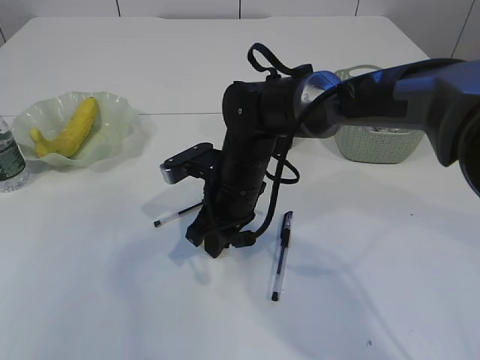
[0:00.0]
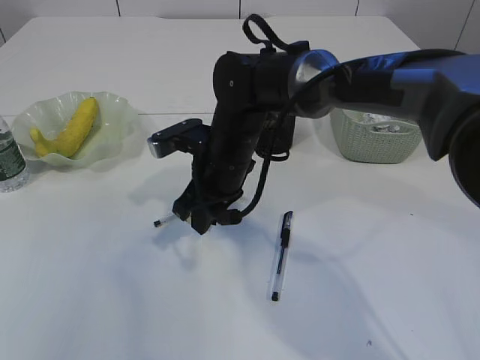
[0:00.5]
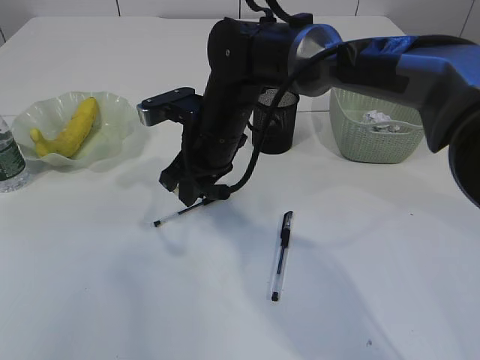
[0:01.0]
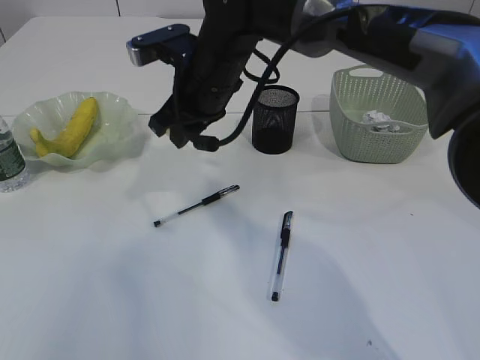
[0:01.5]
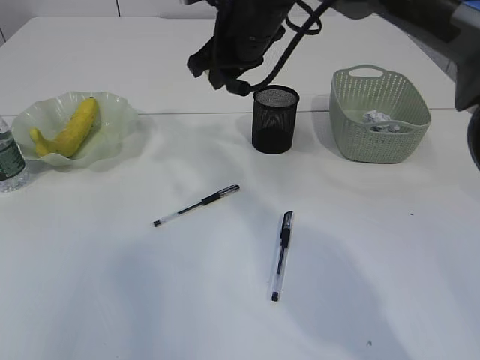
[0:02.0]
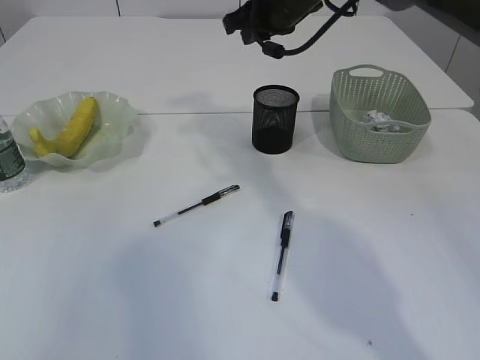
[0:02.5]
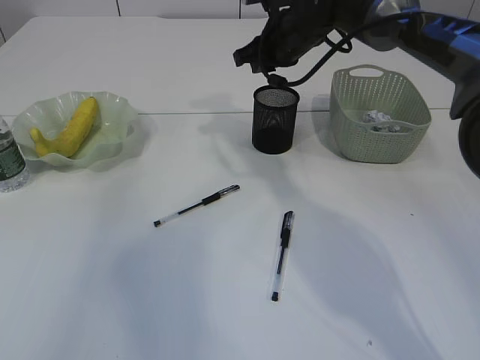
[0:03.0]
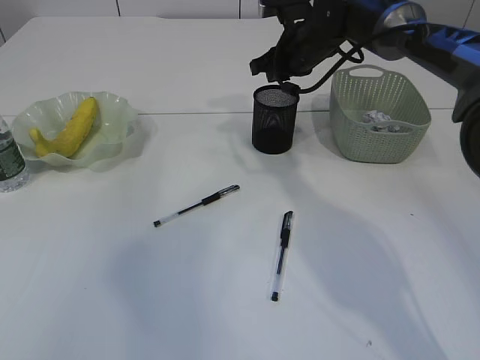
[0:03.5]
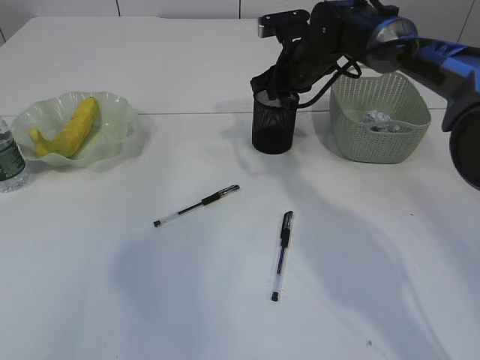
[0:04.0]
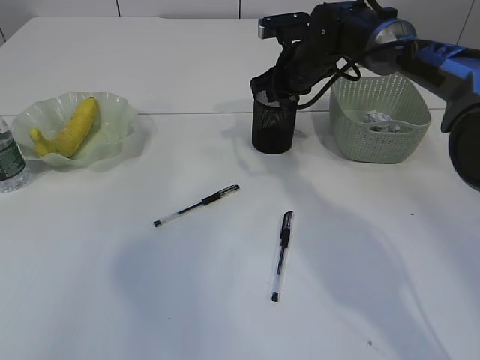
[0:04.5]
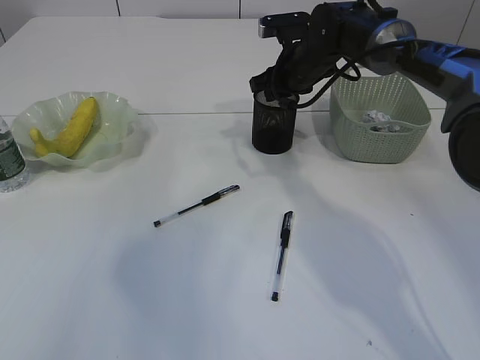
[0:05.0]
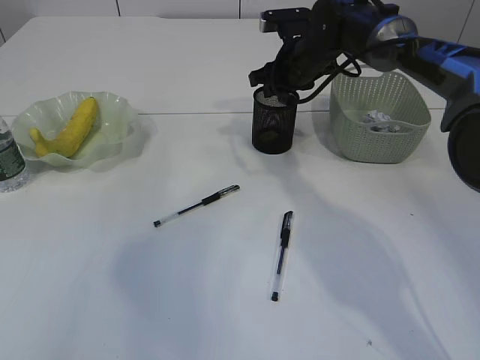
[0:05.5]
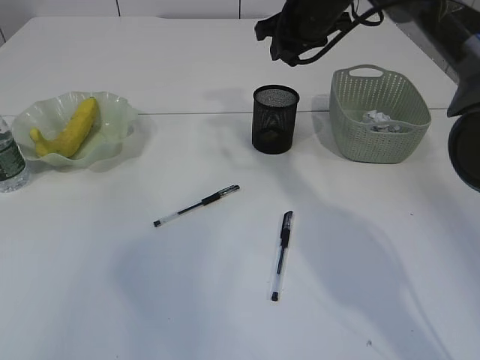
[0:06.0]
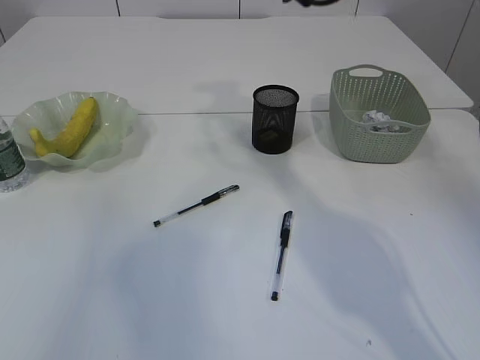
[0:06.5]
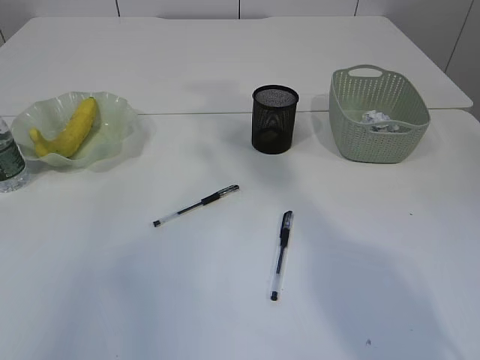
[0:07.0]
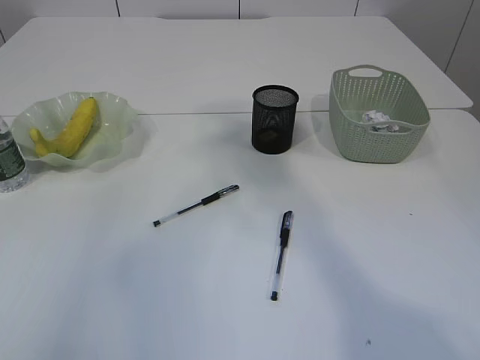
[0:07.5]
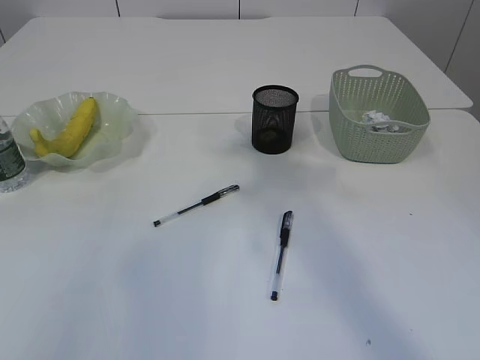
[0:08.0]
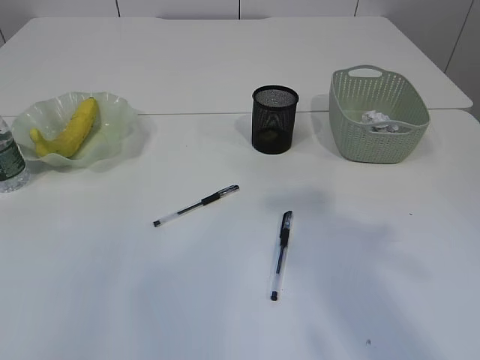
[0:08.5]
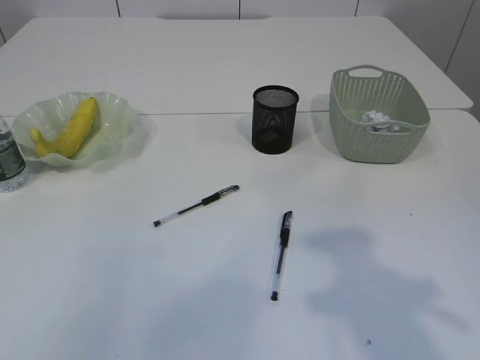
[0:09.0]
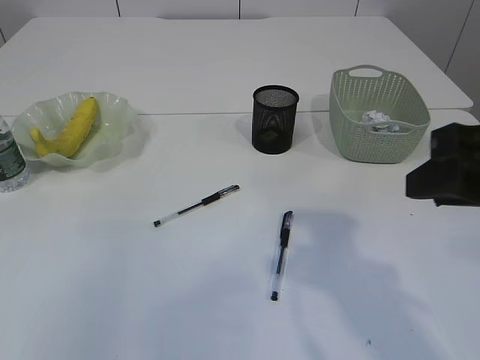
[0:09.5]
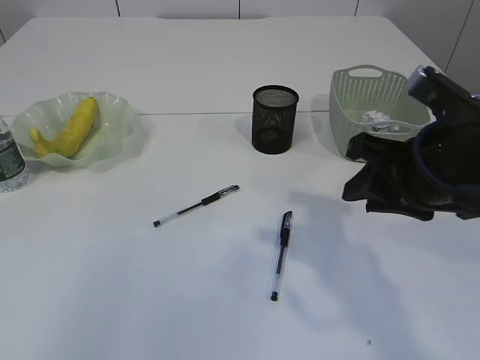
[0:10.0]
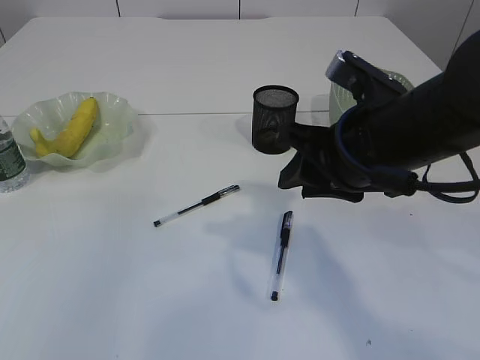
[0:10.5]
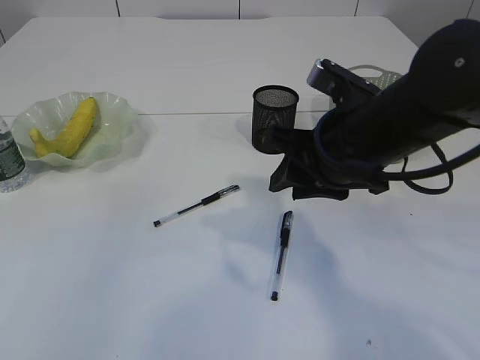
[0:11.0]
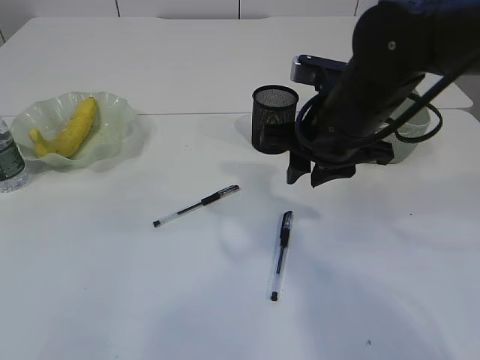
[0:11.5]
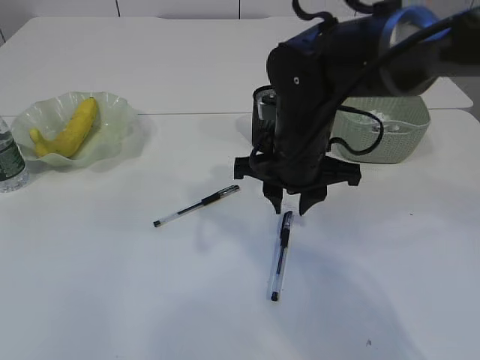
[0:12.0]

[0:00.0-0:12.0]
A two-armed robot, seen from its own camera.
Step, 1.0 to 5.5 s: Place the eraser into the pen holder.
0.0 to 2.0 s: The right gripper goes some 20 cm upward and forward.
2.0 to 4.0 s: The right gripper is displaced to the right, downward and forward by about 15 cm.
4.0 to 6.0 s: The right gripper shifts approximately 10 cm upward.
6.0 to 8.0 s: The right gripper moves backward and upward, some 35 cm.
8.0 to 10.0 s: The left gripper heads backward, covering about 10 cm. Meanwhile the right gripper is displaced downward by roughly 20 cm.
10.0 to 12.0 s: The right gripper goes roughly 15 cm to the left and forward.

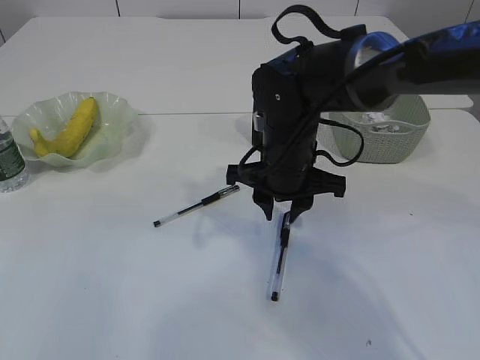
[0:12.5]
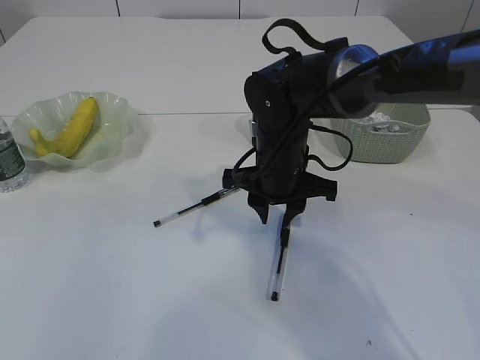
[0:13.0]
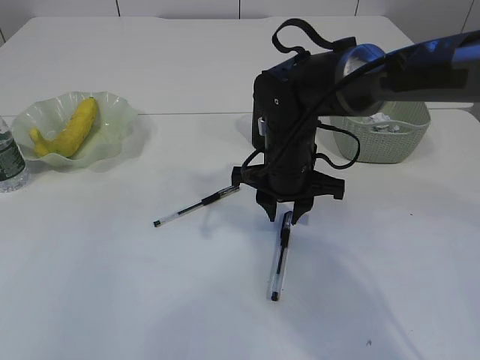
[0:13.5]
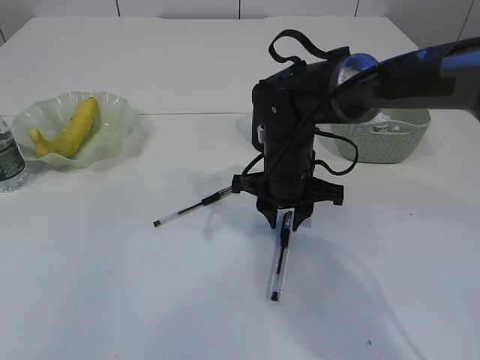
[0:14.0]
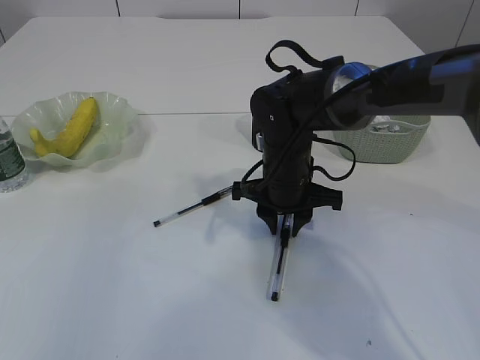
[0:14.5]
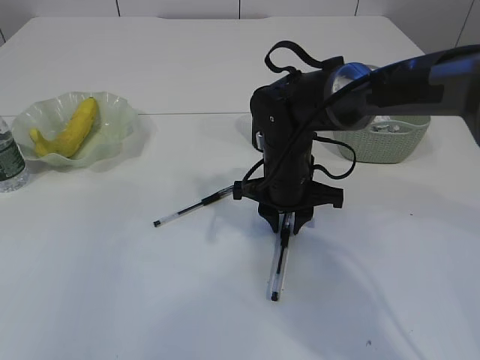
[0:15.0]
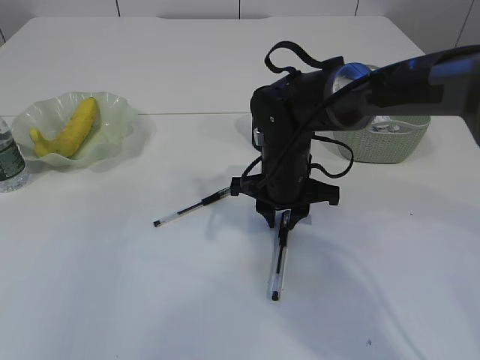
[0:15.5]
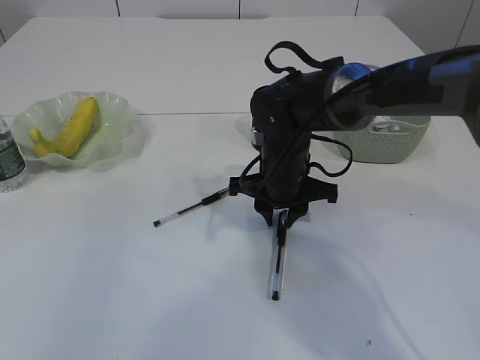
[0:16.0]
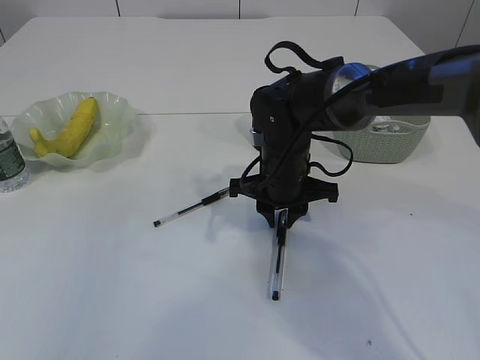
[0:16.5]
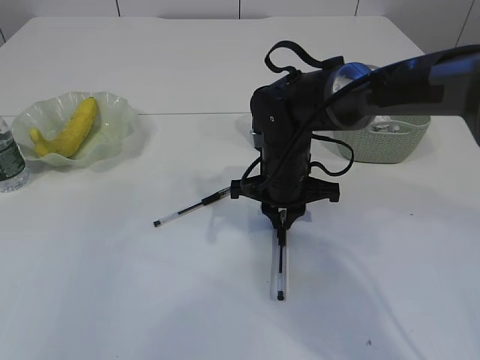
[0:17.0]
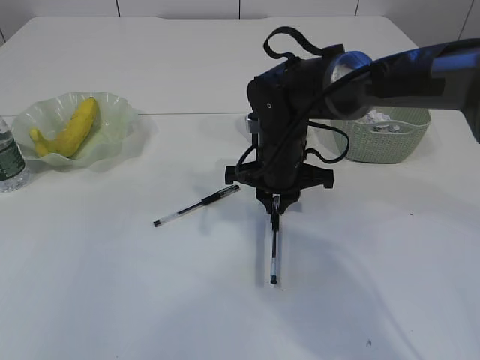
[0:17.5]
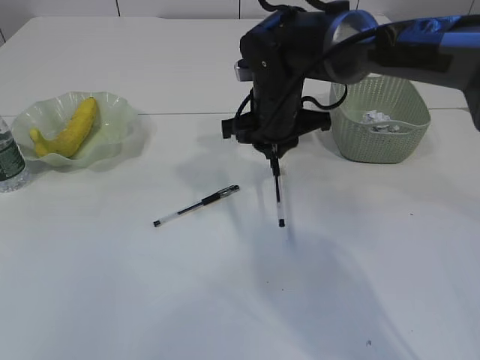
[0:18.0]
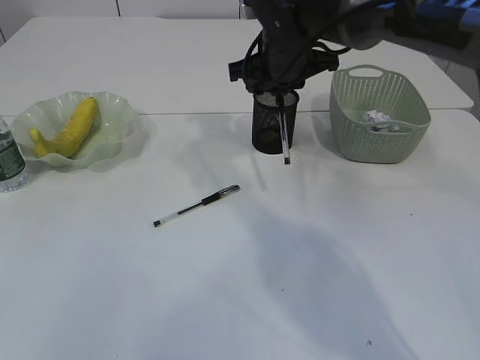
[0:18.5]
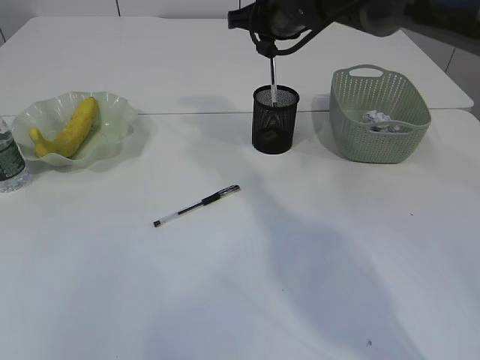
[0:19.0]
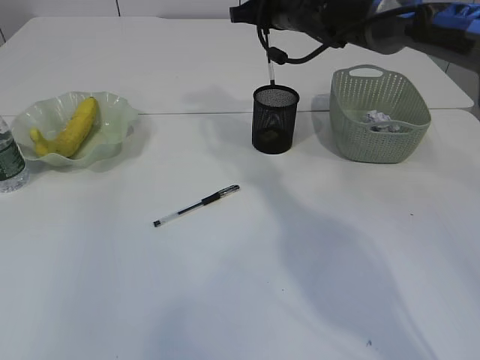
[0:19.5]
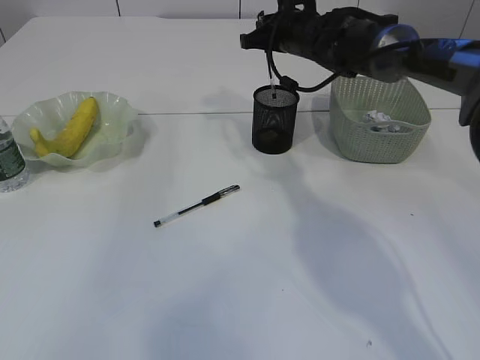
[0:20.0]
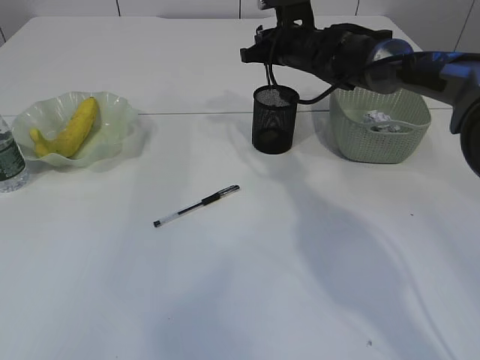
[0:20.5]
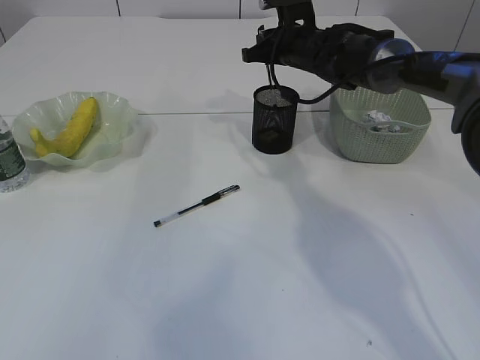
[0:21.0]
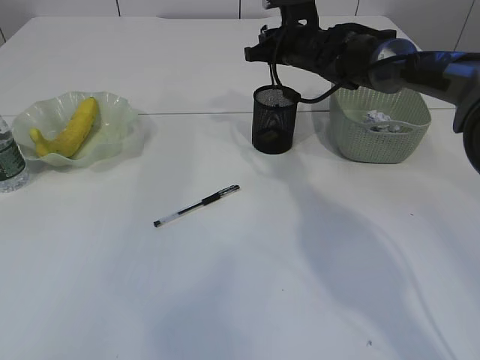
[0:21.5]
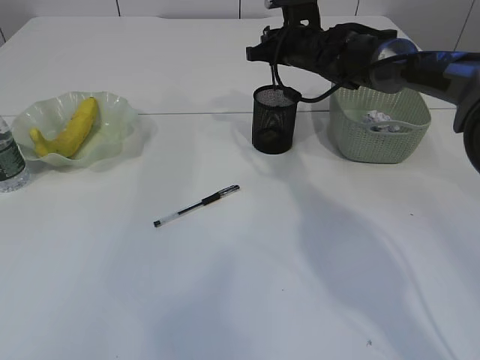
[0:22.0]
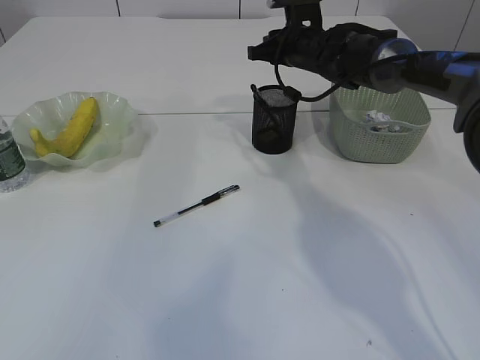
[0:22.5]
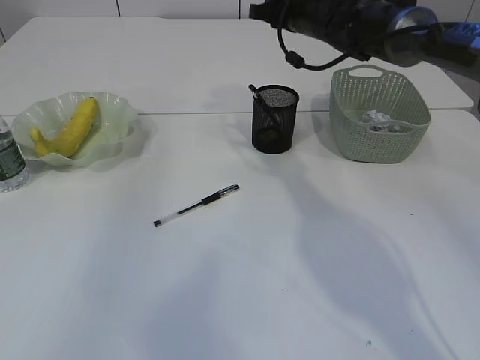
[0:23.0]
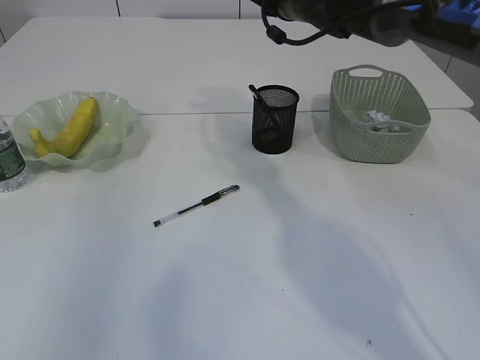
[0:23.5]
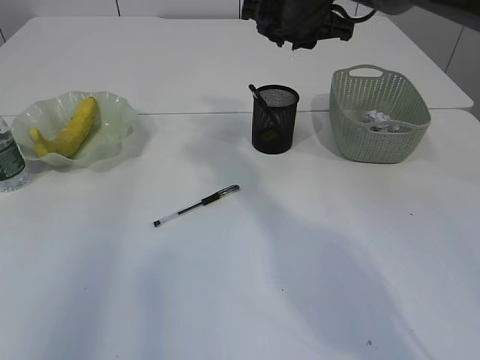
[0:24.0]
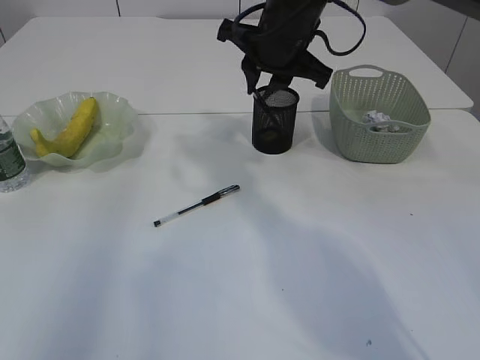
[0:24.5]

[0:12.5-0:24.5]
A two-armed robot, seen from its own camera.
Step, 12.5 to 17.5 s: Pick up the pen with right arm.
Step, 18.0 to 22.0 s: Place the pen into the pen holder.
12.5 to 16.5 s: There are only small adjustments of the grippers.
16.5 to 18.5 s: The right gripper goes some 15 cm upward and forward.
18.5 to 20.5 s: The right gripper shifts roughly 10 cm forward.
20.5 to 22.5 s: The grippers move only a little.
22.5 to 24.5 s: The left gripper goes some 5 cm forward. Meanwhile the right gripper moves backward, upward and to the left, roughly 15 cm.

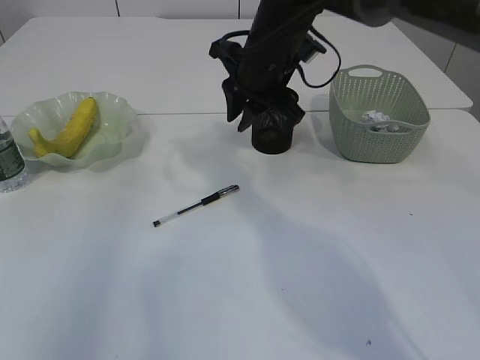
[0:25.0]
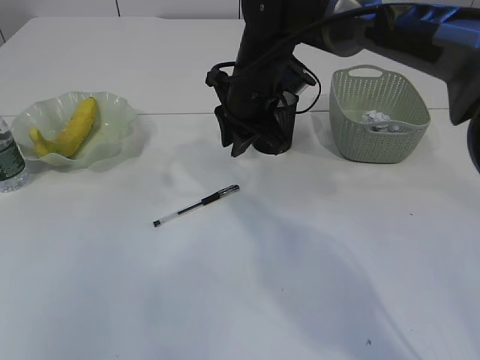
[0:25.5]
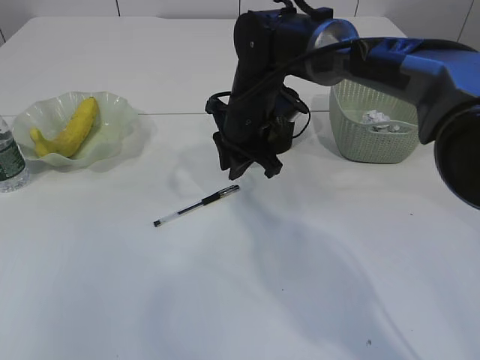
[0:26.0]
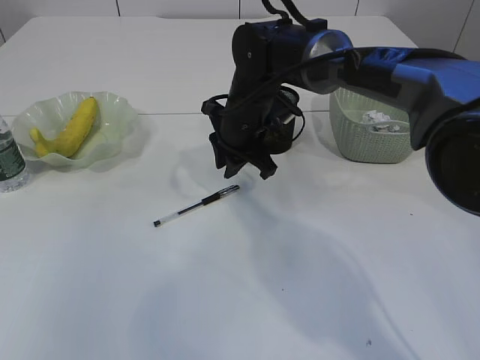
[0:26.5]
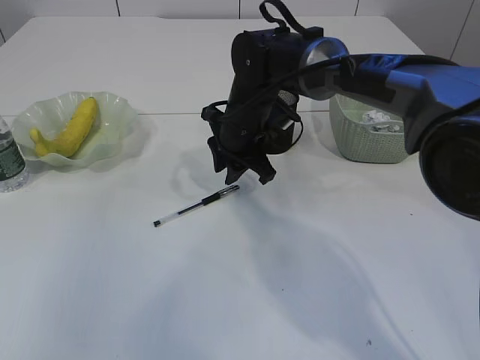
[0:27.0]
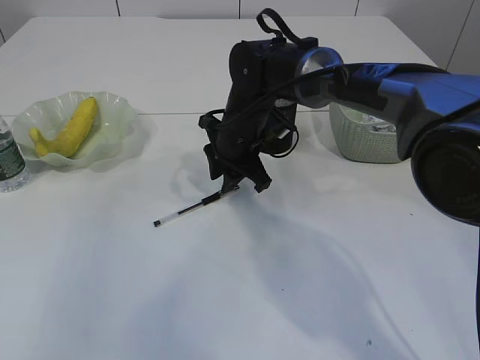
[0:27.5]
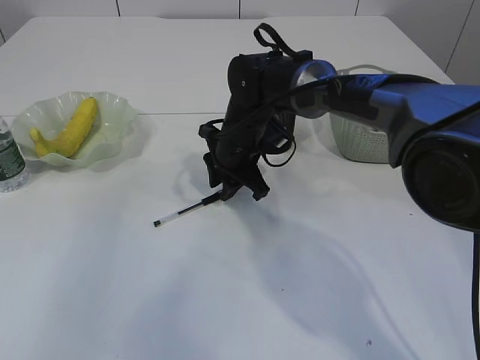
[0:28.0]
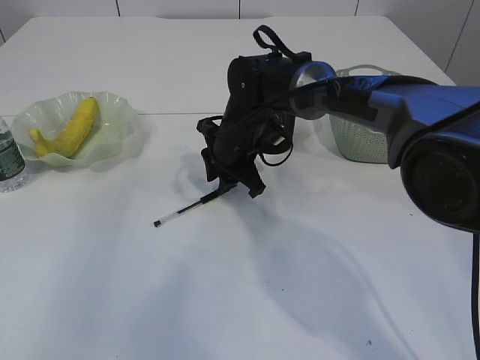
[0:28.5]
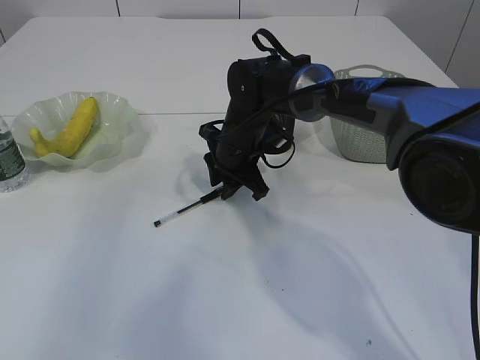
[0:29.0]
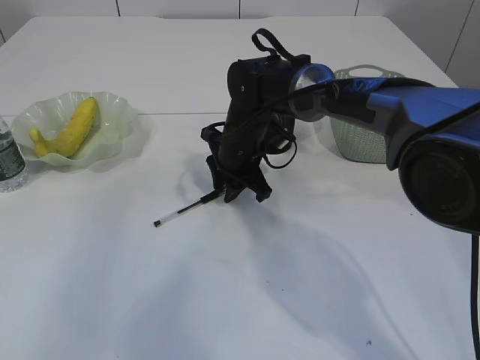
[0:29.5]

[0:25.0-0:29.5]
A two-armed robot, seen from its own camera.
25.0 to 27.0 s: The right gripper travels downward by some 10 cm.
27.0 to 29.5 s: The grippers move only a little.
